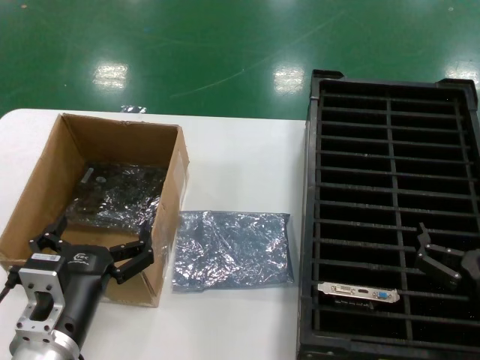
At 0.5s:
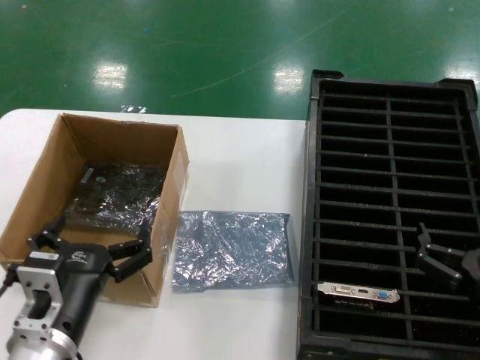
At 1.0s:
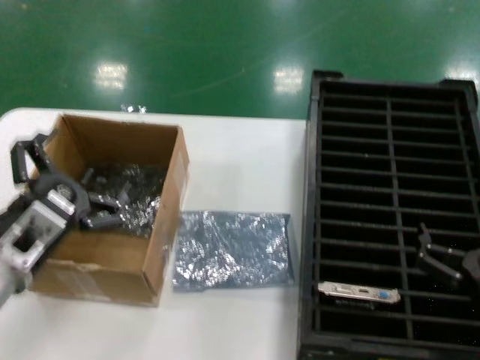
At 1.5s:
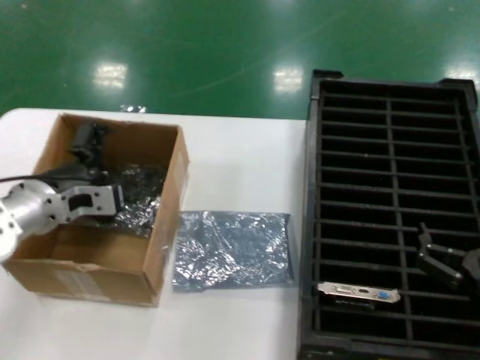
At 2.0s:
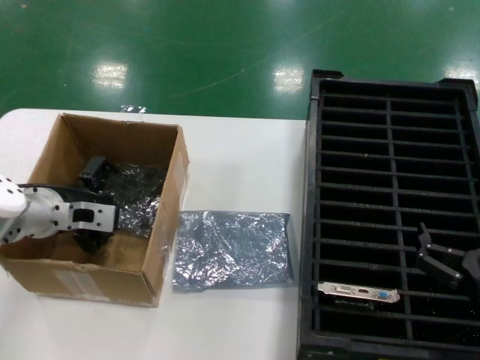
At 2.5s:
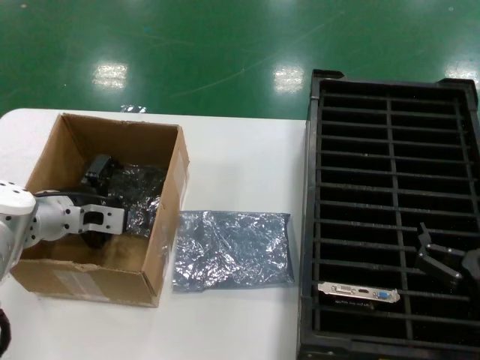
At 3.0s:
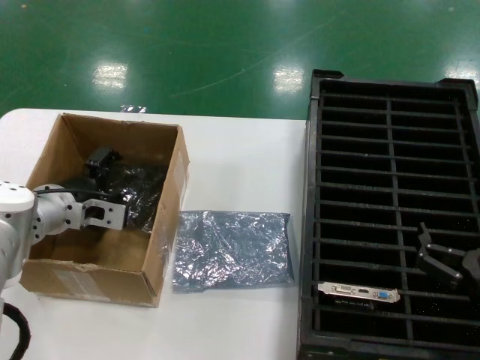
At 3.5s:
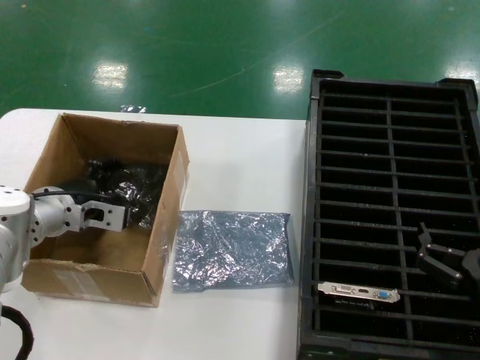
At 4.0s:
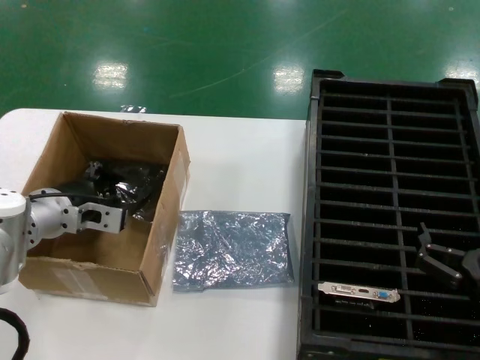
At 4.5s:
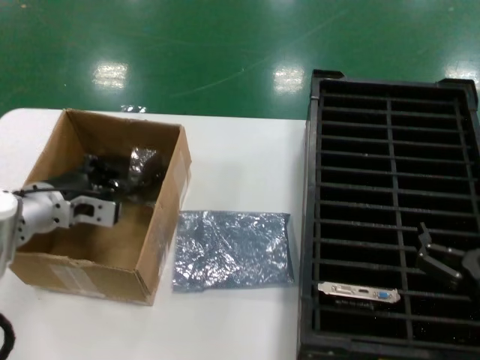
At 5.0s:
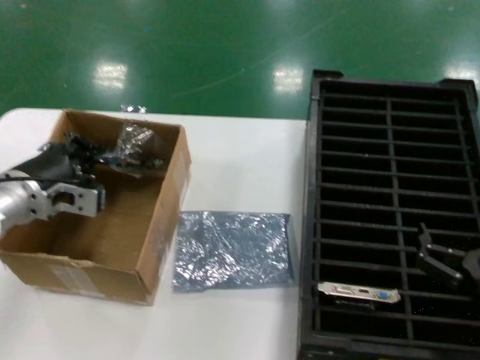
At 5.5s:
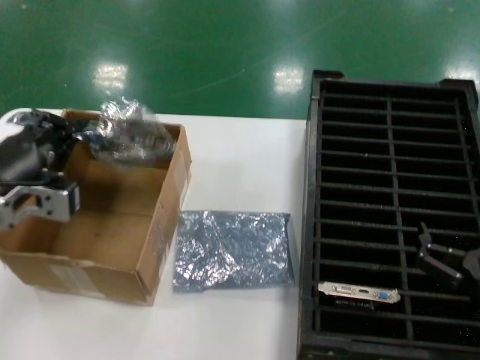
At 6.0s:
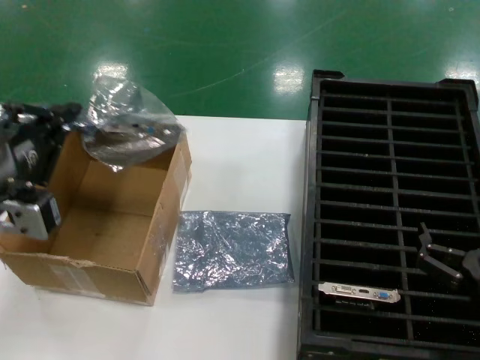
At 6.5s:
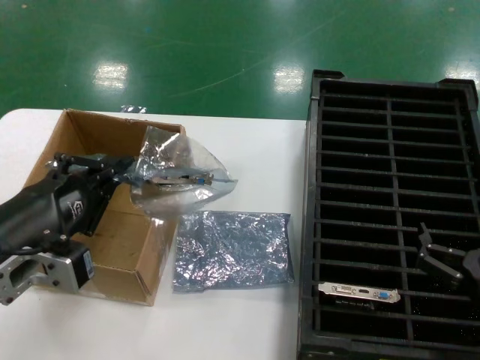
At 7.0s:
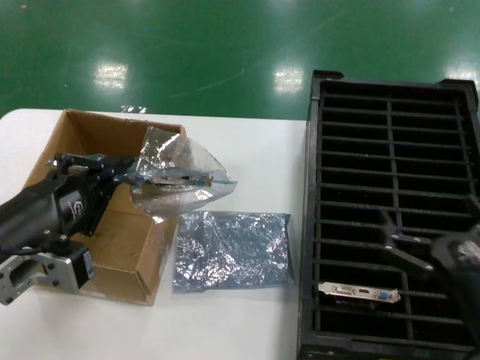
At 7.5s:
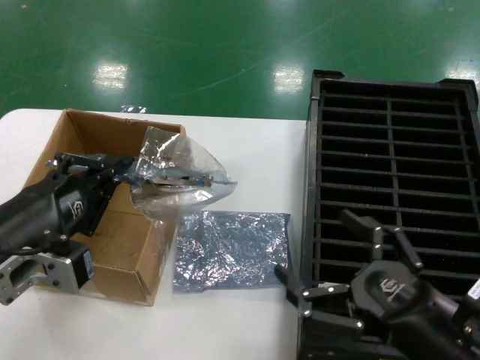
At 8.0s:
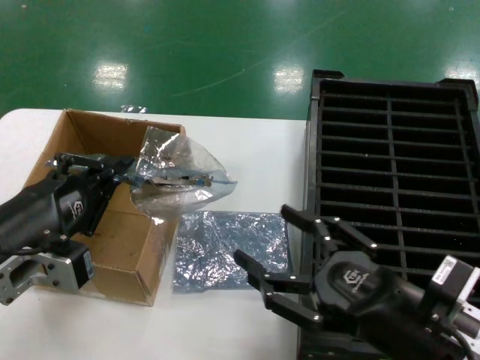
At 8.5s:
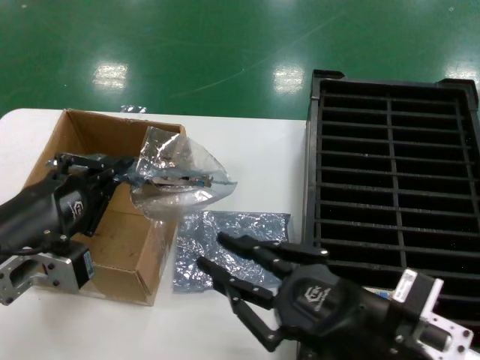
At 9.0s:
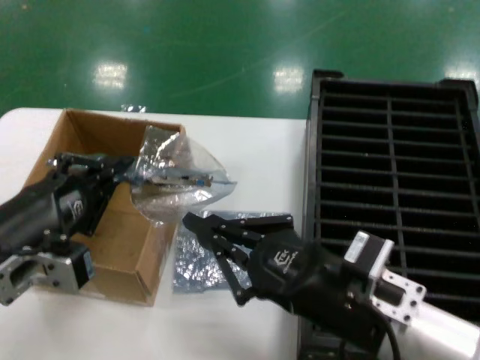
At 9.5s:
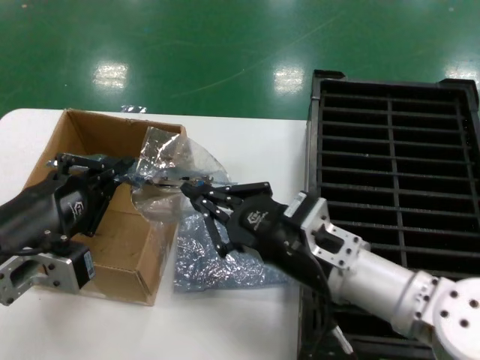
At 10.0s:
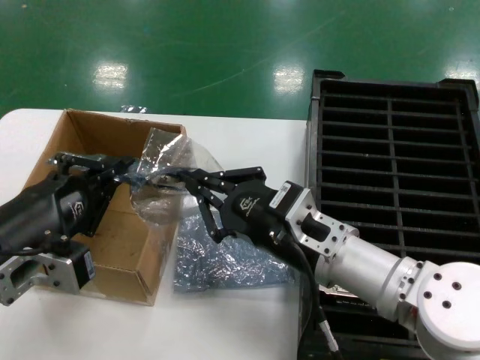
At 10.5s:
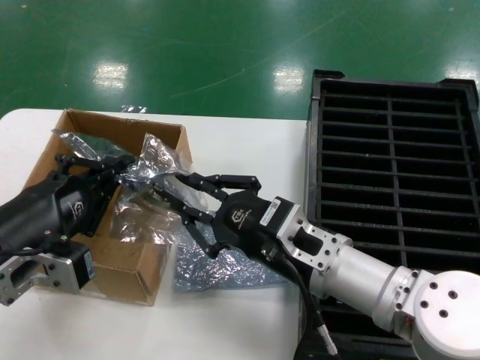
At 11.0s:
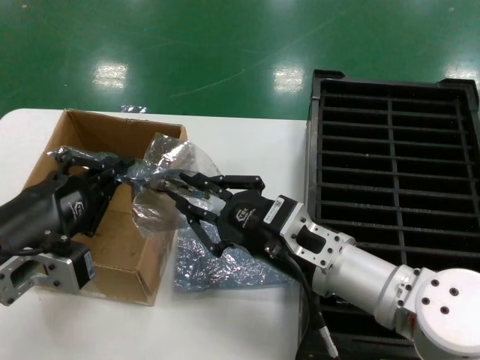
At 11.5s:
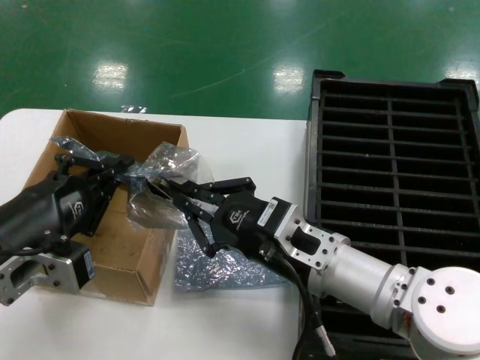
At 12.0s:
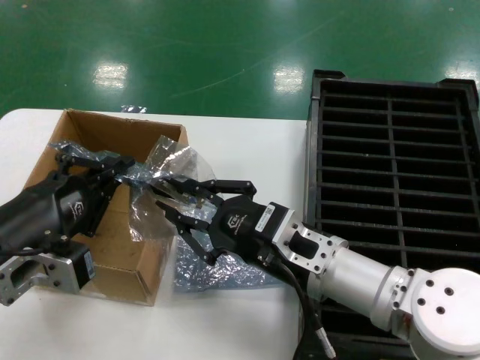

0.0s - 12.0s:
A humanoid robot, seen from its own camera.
Task of the whole recording: take out graphics card from box remove packaging put into black container.
Step, 0.0s - 4.5s: Grasp the bag.
Step, 5.0s - 6.5s: Lift the bag.
0.0s - 2.0s: The left hand heads forward and to the left, covering approximately 25 cm.
2.0s - 4.0s: The hands move only a little.
4.0s - 6.0s: The left hand is displaced backward and upward by some 25 cm.
6.0s - 8.0s: The right hand travels upward and to the left by approximately 10 cm.
8.0s - 10.0s: The right hand is displaced forward and to the left by approximately 15 cm.
10.0s - 12.0s: The hands stay close to where they were, moving slightly.

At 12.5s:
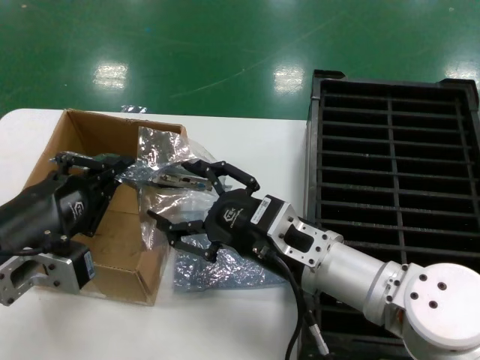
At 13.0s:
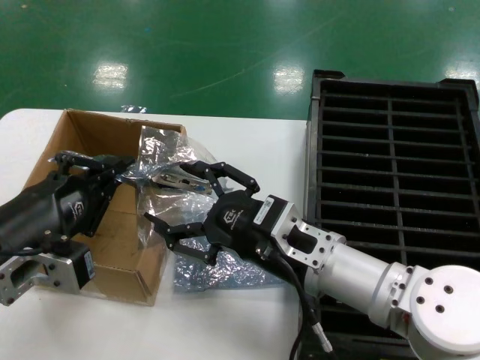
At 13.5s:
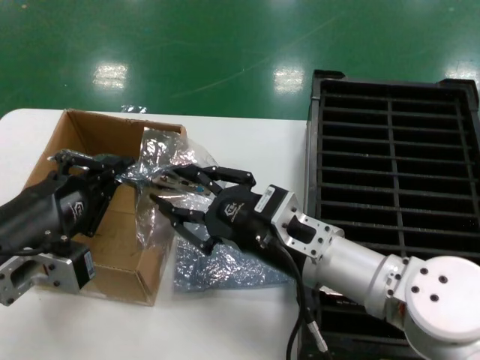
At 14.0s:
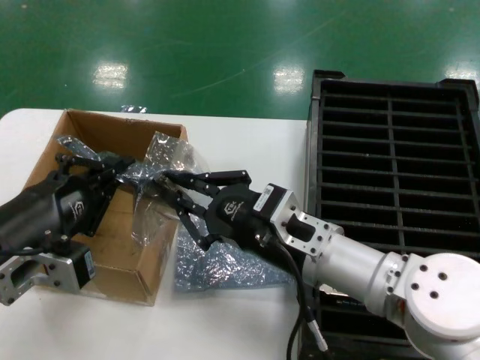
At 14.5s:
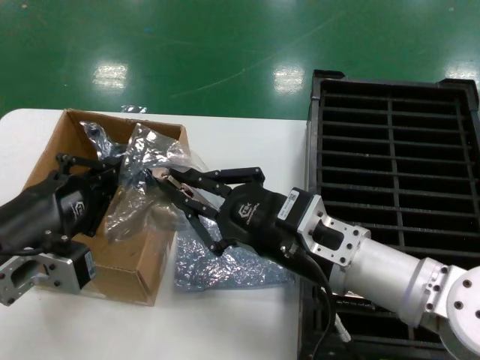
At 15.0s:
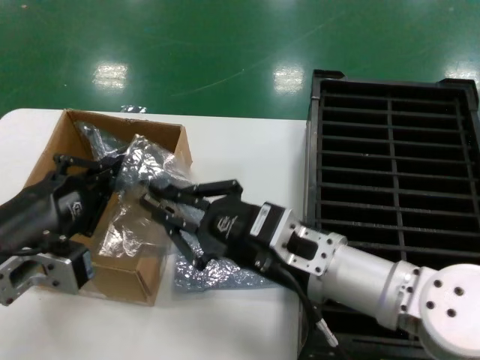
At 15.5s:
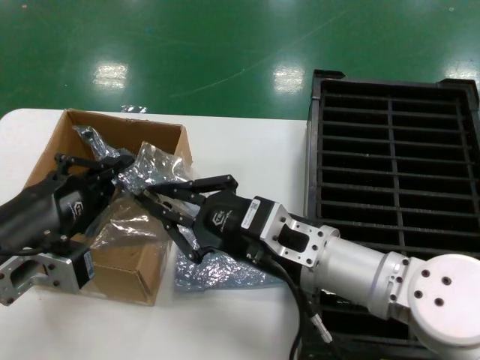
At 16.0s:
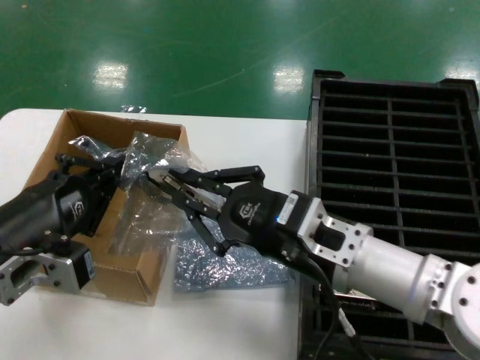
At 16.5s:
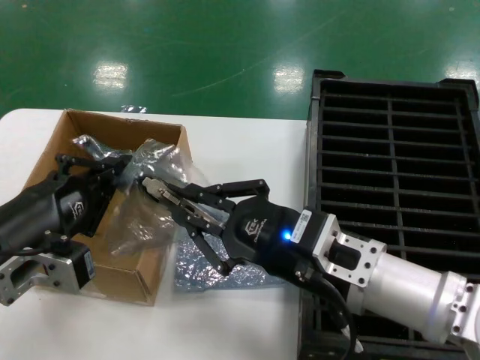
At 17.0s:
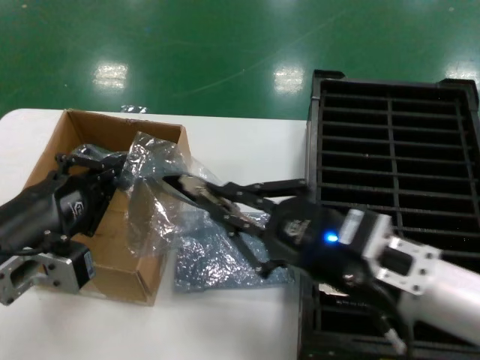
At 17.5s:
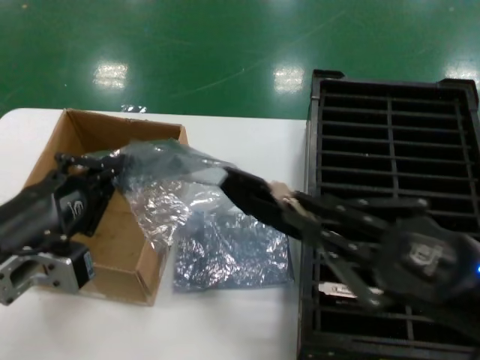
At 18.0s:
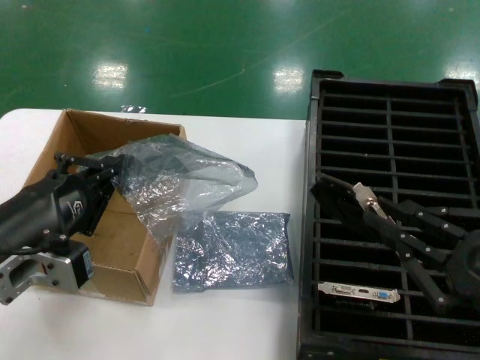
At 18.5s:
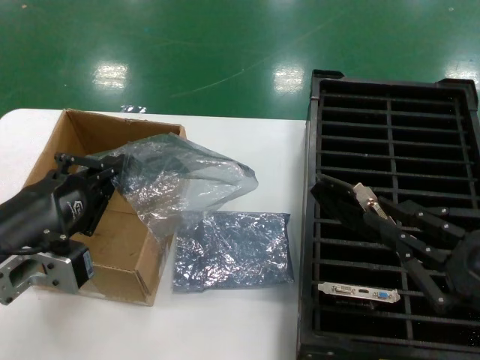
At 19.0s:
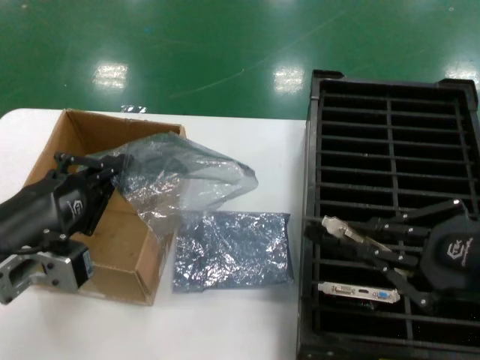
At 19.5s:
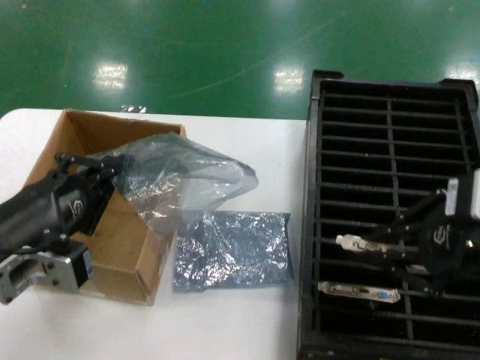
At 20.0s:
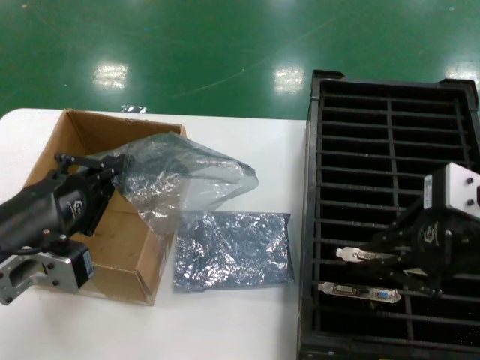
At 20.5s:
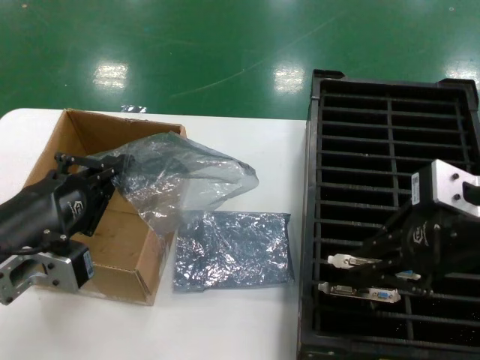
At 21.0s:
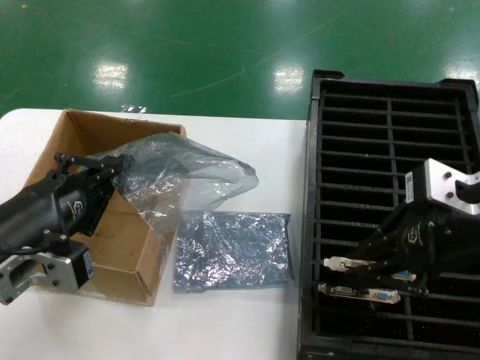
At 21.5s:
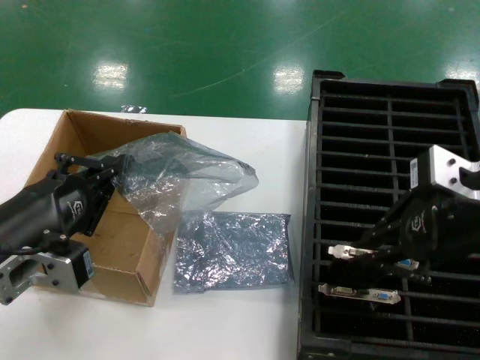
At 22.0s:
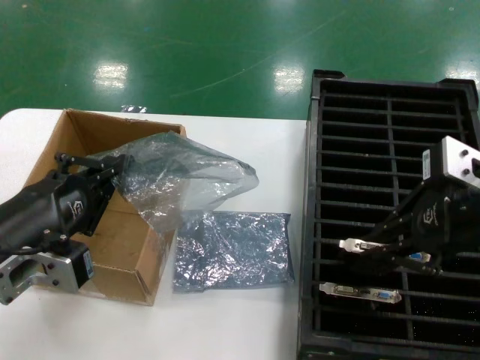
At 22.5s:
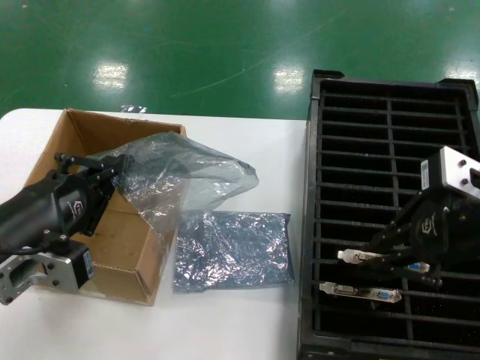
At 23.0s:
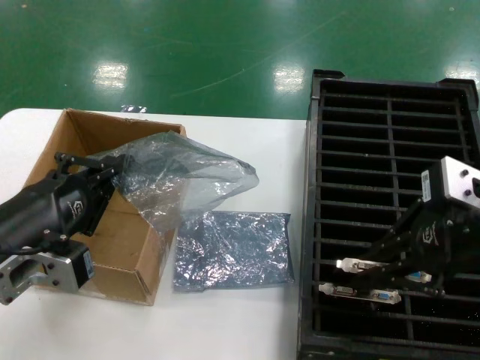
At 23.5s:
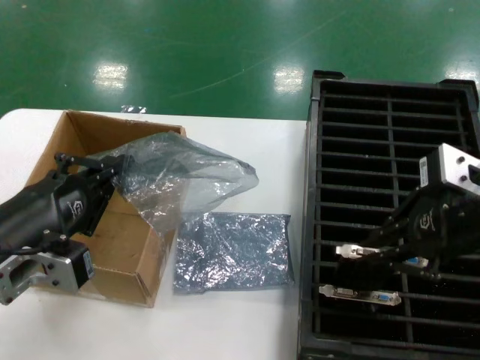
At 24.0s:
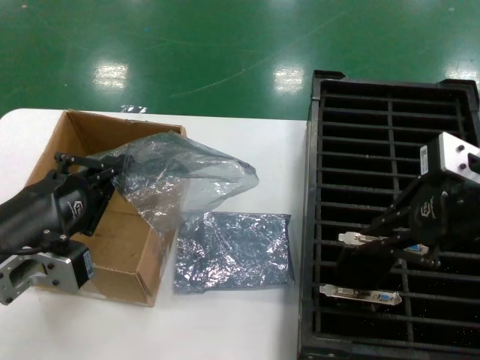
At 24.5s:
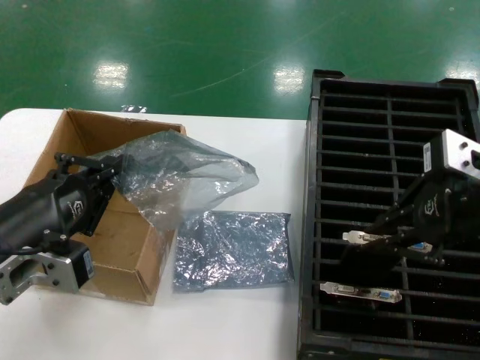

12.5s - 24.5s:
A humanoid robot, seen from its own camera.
Task of the whole recording: take out graphics card from box remove packaging put into black container.
Step, 12.5s - 17.5s: Take out the hard disk of the bag.
12.5s - 14.5s: There are only small adjustments of the hands.
14.5s - 16.5s: There are only small adjustments of the hands.
16.5s - 18.5s: The right hand heads to the right and backward, covering roughly 20 cm.
18.5s - 20.5s: The right hand shifts about 20 cm forward, upward and to the left.
20.5s - 24.5s: The hands stay close to where they were, moving slightly.

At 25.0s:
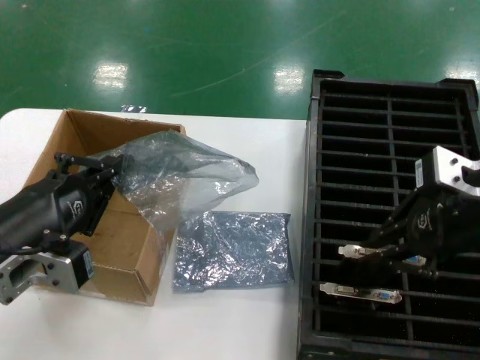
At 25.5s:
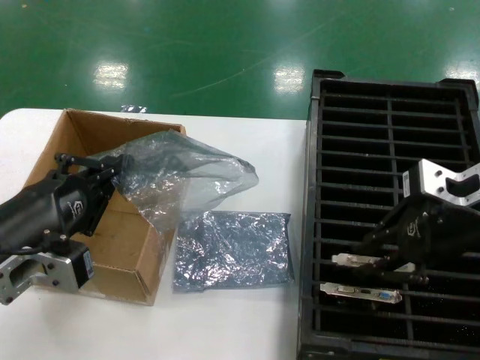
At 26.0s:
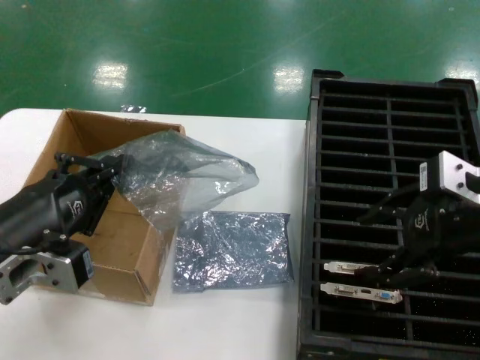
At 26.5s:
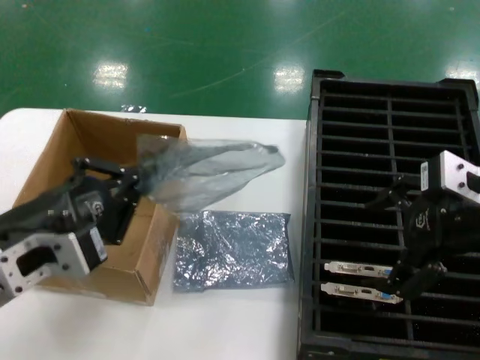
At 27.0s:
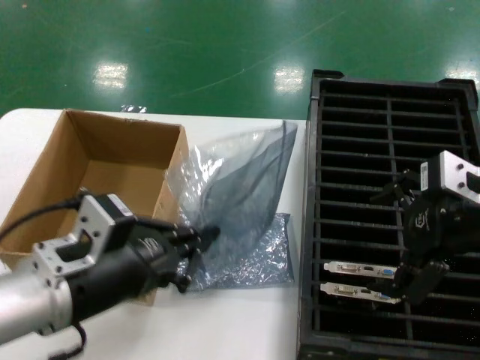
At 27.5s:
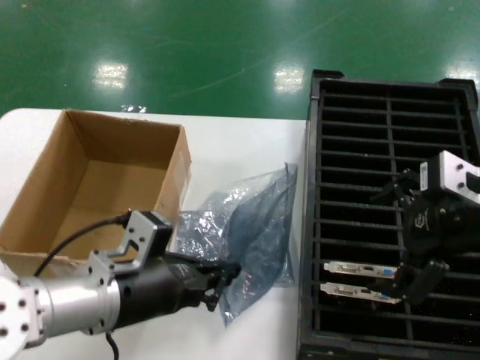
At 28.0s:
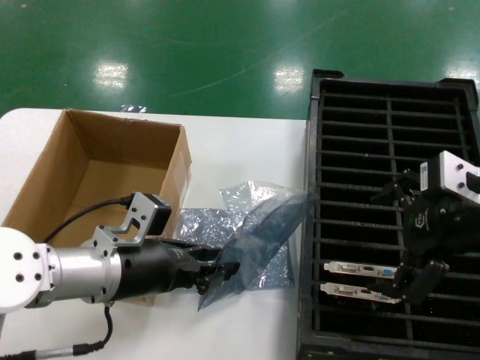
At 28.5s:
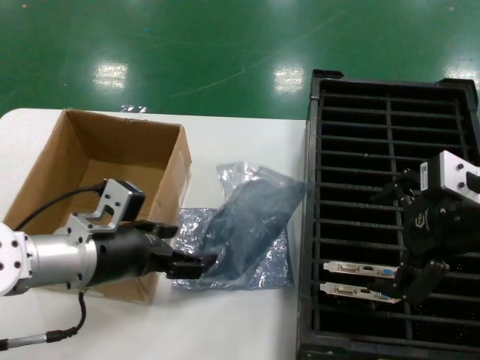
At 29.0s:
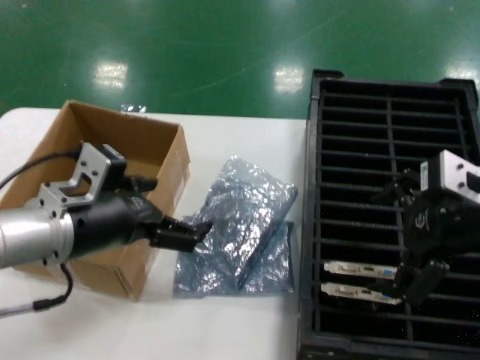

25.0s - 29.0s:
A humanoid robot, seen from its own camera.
Task of the whole recording: take out graphics card from box remove packaging put into black container.
Step, 26.0s - 28.5s: Place the down the bag.
25.0s - 27.0s: The left hand heads to the right, covering some 5 cm.
27.0s - 29.0s: The left hand travels forward by some 10 cm.
